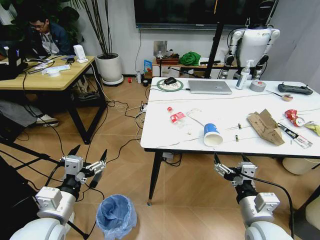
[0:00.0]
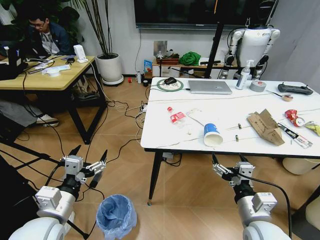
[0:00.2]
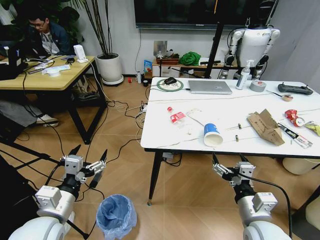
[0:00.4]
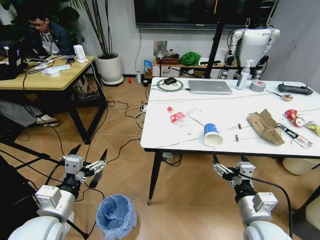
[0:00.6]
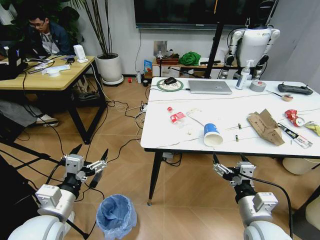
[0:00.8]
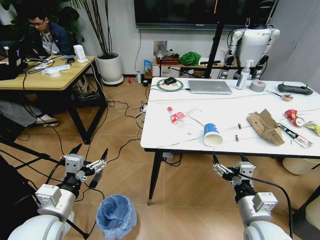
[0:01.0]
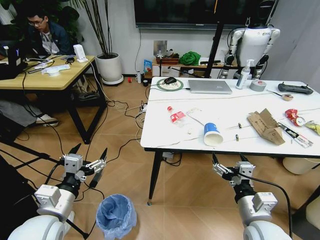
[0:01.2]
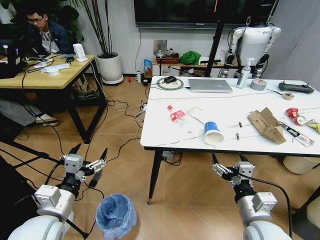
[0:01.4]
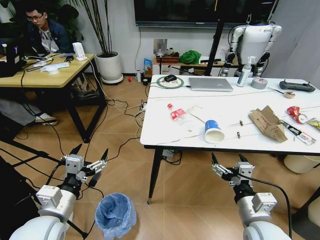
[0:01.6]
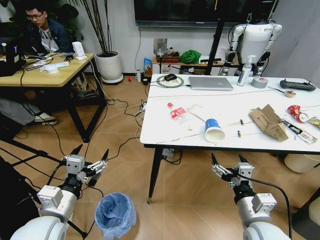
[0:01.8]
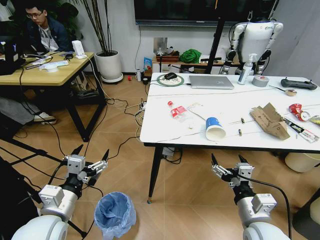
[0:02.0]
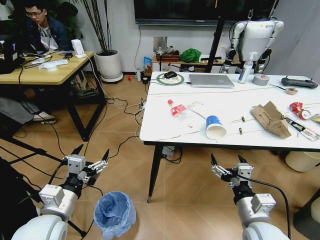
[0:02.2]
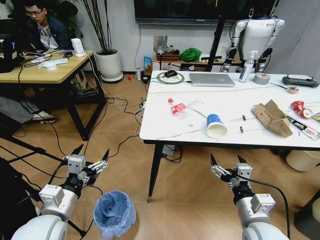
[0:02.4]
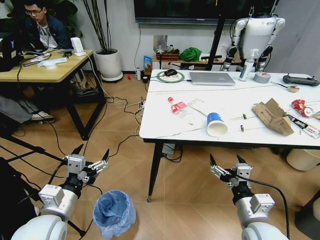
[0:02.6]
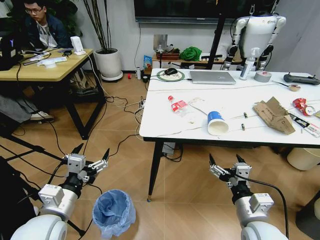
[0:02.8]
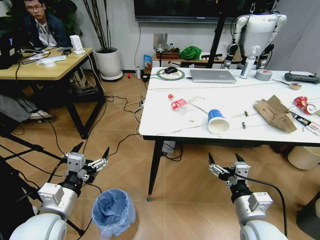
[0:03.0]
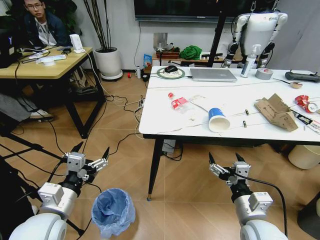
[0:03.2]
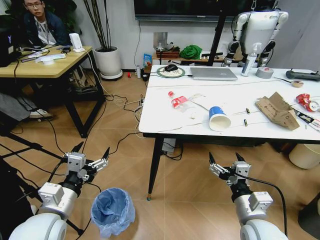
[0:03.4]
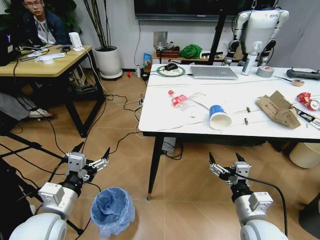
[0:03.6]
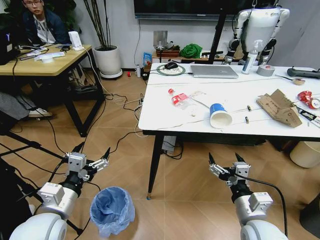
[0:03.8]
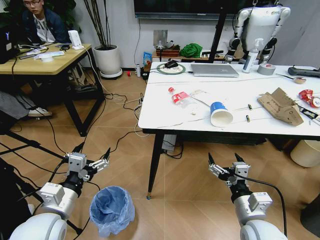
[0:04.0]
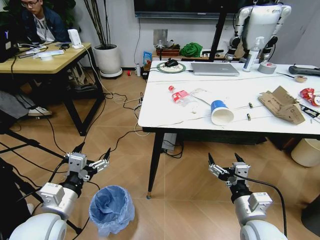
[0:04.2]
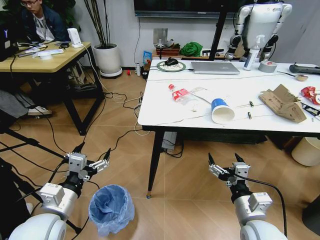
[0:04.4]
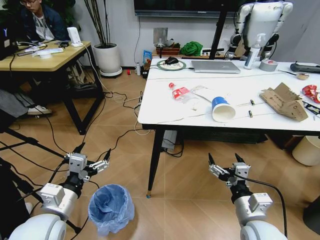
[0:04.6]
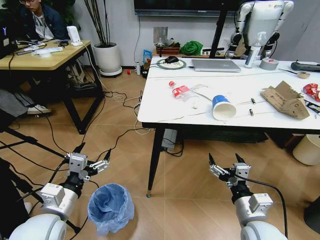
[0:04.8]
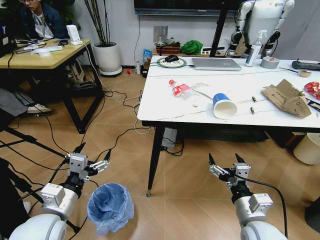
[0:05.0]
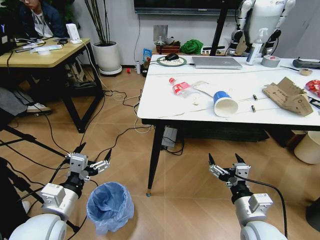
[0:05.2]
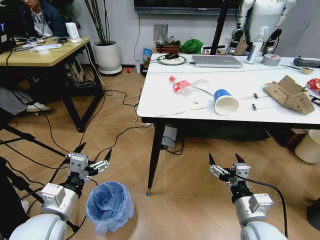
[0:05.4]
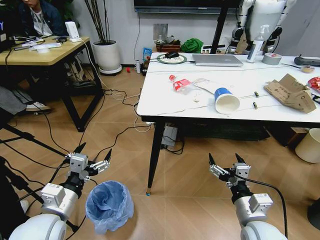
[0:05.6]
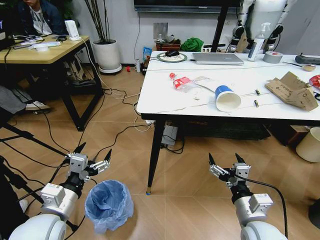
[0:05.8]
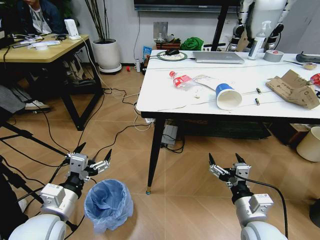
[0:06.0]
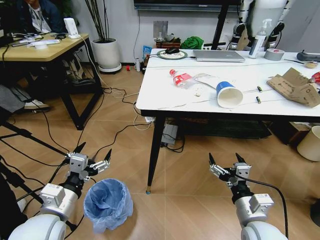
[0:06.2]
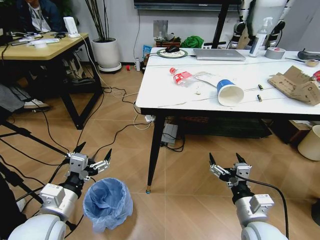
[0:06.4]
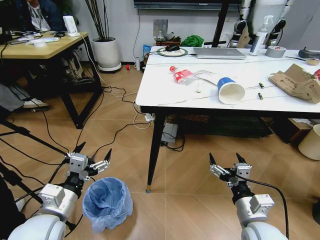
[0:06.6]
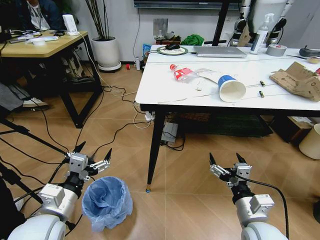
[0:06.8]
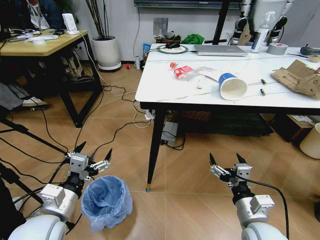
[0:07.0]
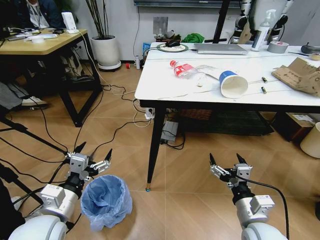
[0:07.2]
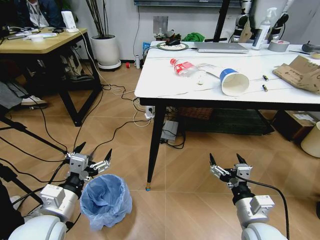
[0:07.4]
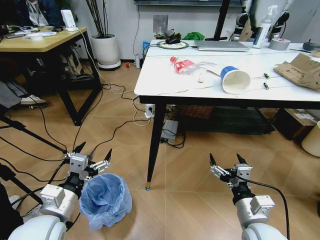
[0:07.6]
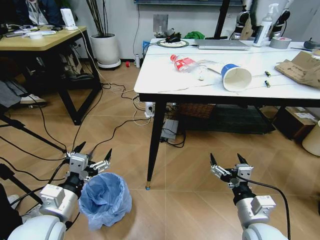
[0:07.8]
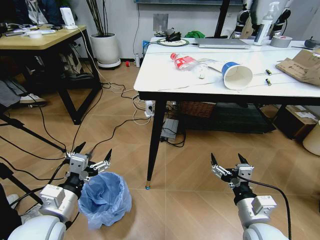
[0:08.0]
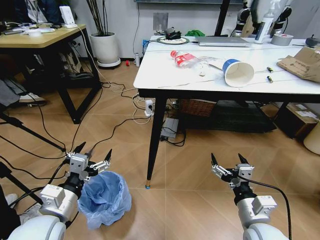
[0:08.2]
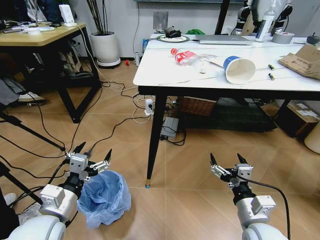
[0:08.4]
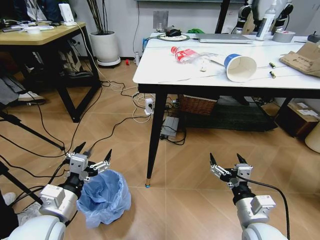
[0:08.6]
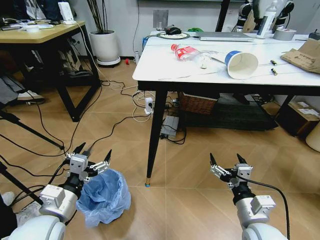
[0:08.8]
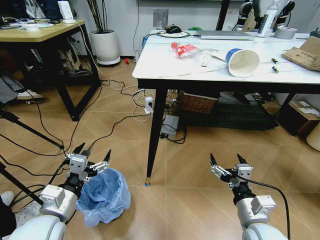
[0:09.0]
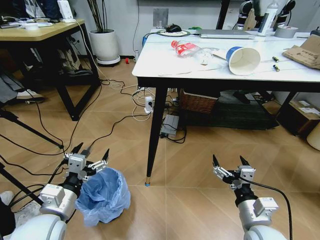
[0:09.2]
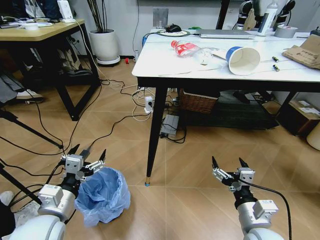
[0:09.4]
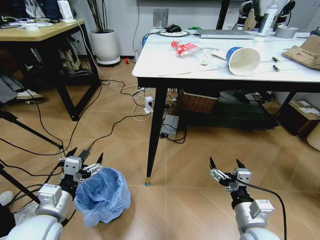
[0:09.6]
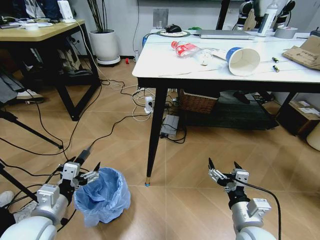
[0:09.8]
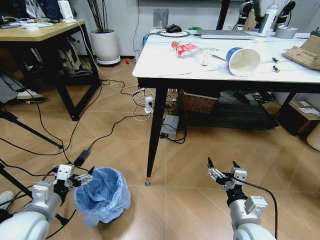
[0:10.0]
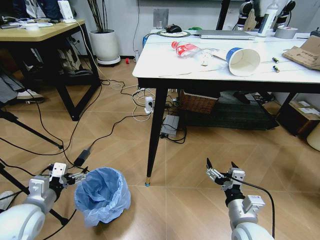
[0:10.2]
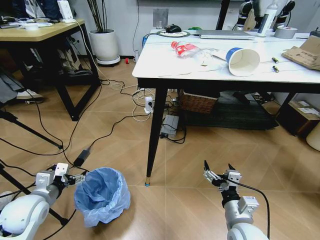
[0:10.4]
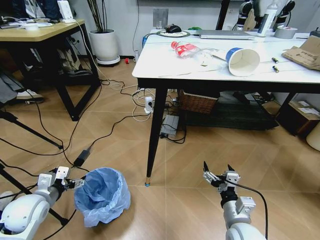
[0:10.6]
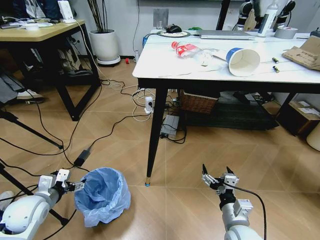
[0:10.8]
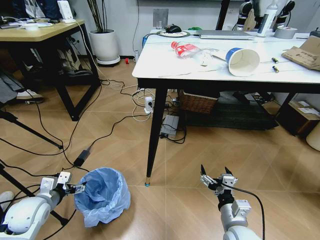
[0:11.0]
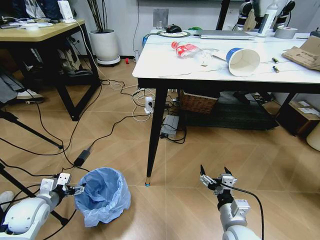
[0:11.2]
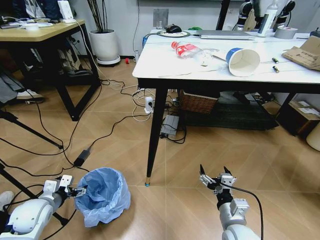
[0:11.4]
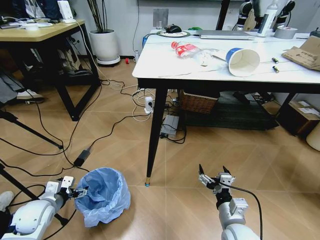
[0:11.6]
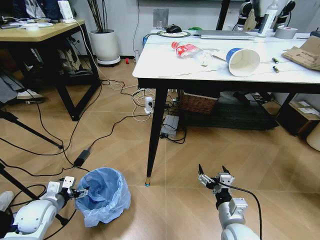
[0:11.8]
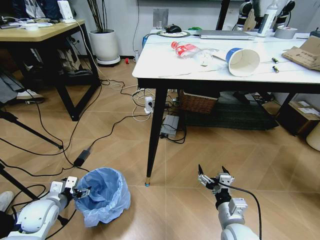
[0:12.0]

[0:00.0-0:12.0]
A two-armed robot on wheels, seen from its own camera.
Task of the whole recording: Pick up the trash bin and place the trash from the table into it.
0:09.0 to 0:10.4: The left gripper shifts some 10 cm to the left and forward.
0:10.4 to 0:12.0: The left gripper goes approximately 10 cm downward.

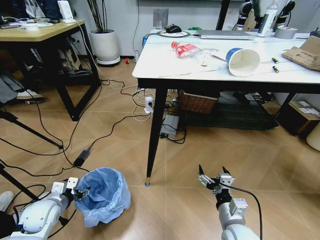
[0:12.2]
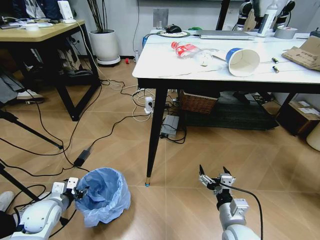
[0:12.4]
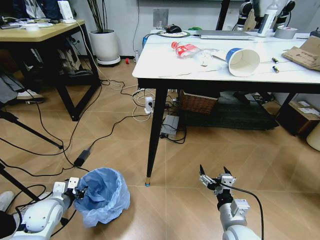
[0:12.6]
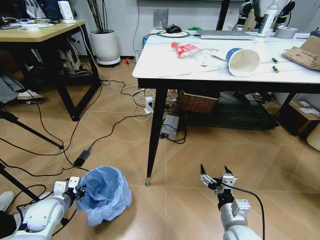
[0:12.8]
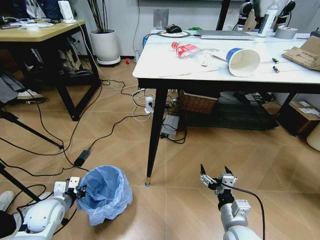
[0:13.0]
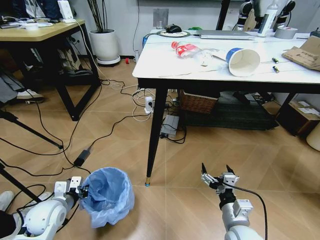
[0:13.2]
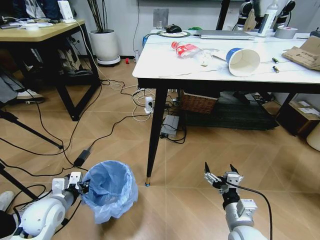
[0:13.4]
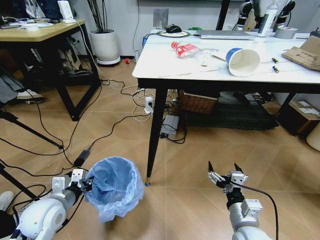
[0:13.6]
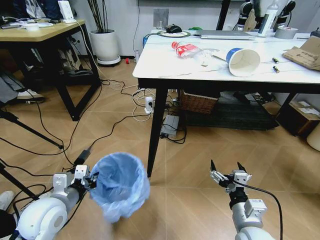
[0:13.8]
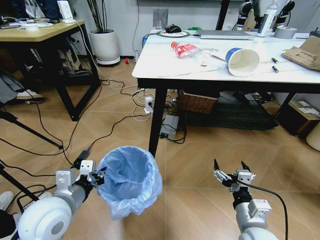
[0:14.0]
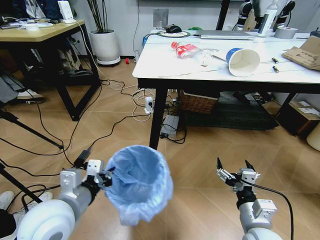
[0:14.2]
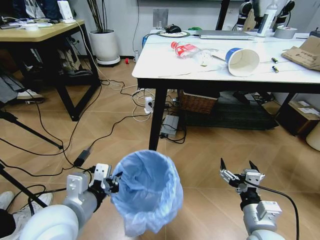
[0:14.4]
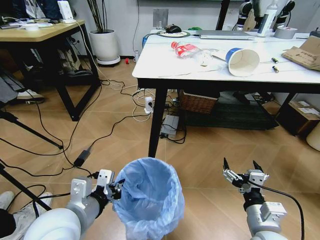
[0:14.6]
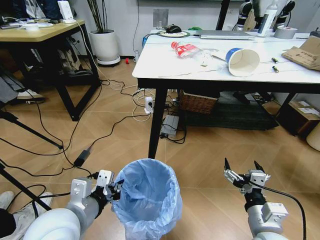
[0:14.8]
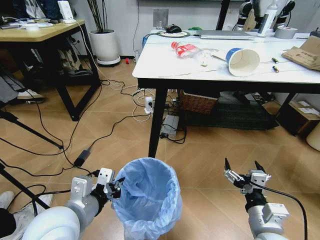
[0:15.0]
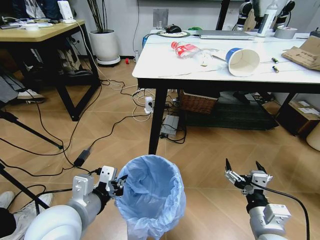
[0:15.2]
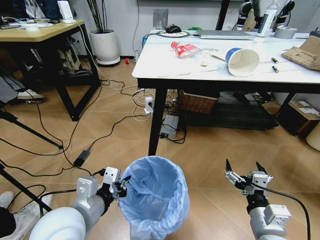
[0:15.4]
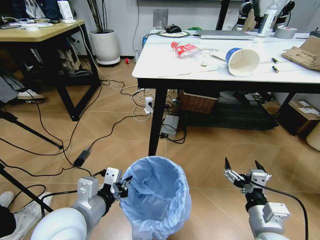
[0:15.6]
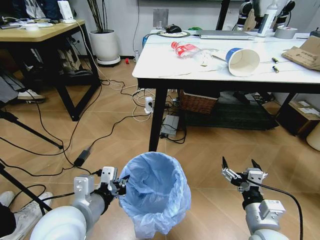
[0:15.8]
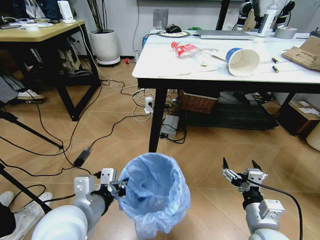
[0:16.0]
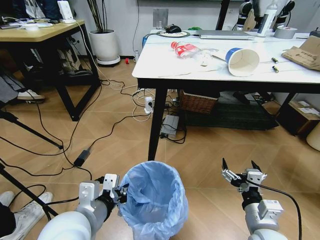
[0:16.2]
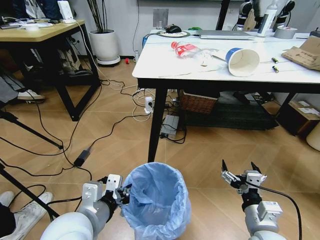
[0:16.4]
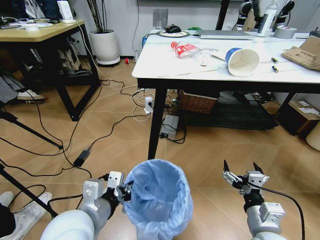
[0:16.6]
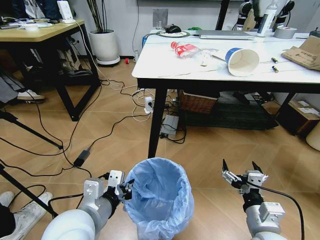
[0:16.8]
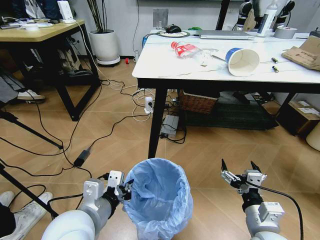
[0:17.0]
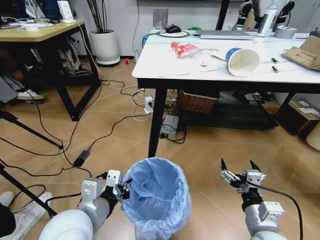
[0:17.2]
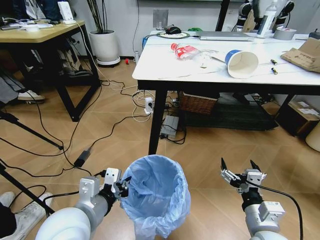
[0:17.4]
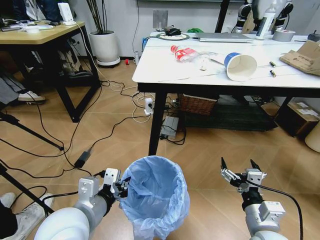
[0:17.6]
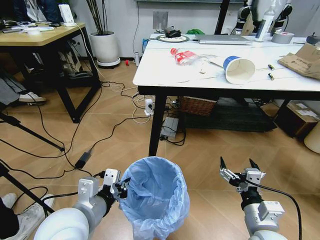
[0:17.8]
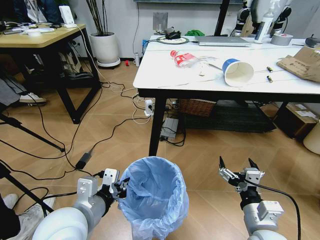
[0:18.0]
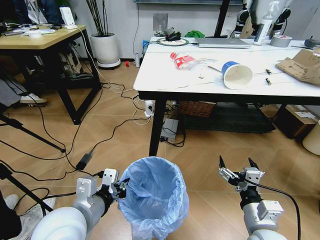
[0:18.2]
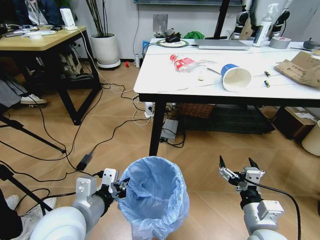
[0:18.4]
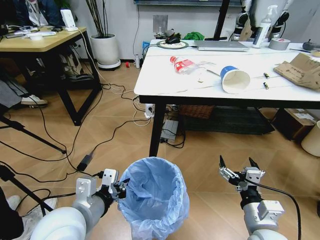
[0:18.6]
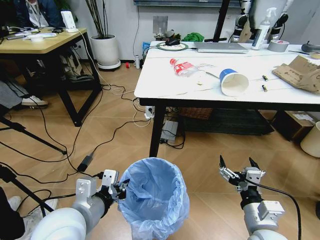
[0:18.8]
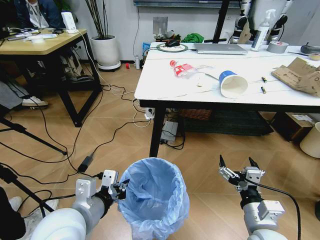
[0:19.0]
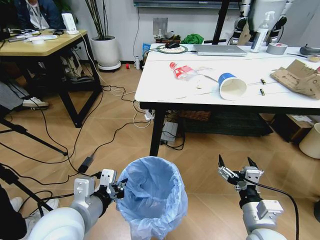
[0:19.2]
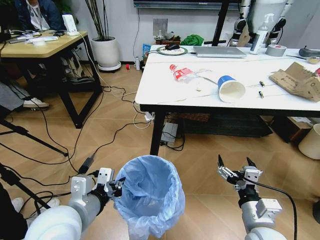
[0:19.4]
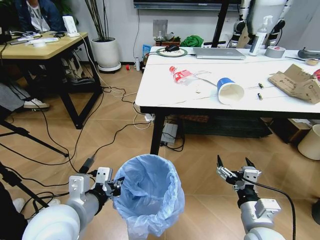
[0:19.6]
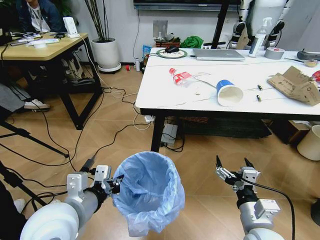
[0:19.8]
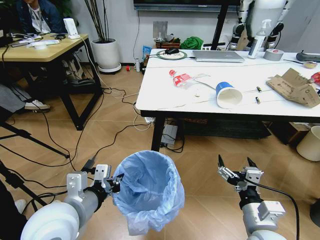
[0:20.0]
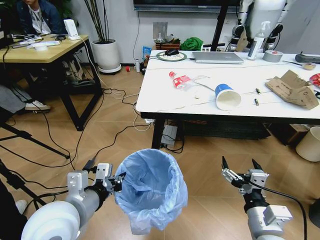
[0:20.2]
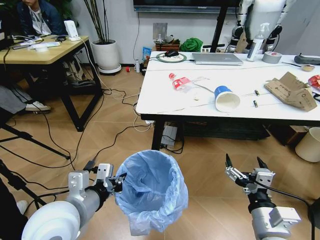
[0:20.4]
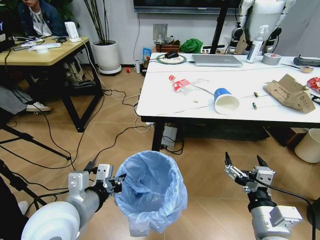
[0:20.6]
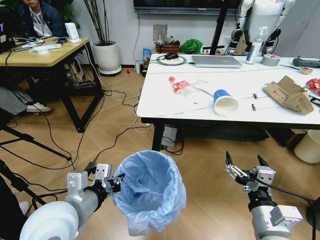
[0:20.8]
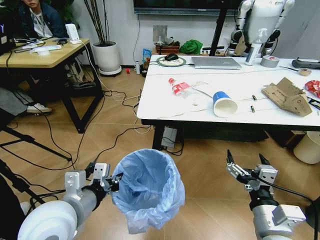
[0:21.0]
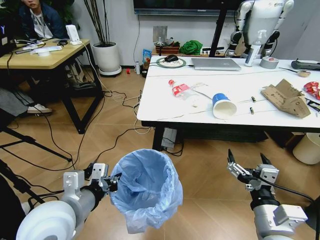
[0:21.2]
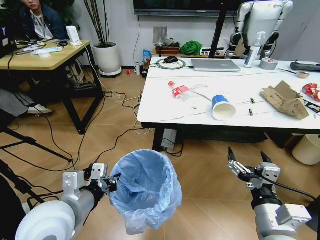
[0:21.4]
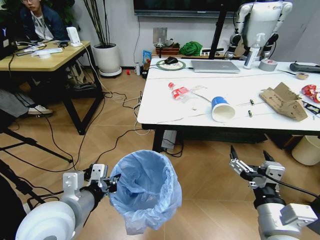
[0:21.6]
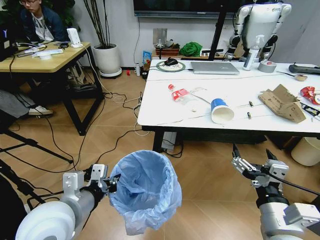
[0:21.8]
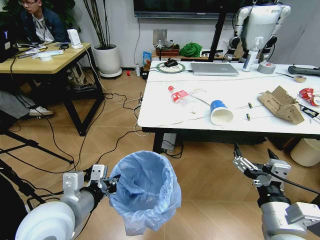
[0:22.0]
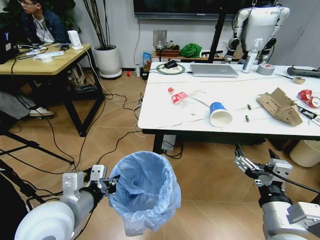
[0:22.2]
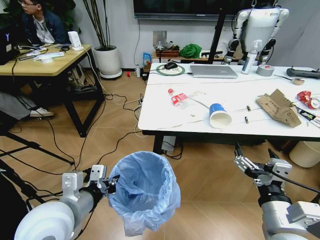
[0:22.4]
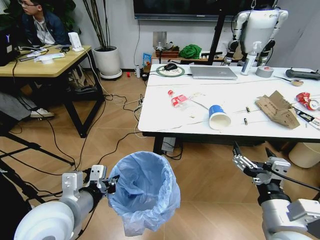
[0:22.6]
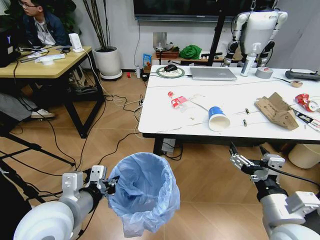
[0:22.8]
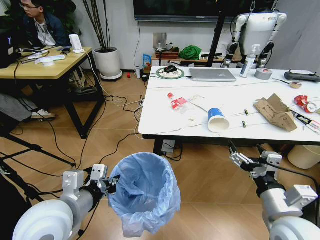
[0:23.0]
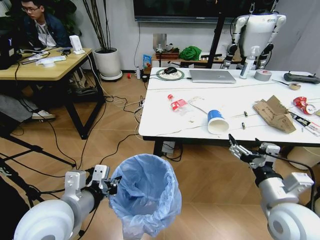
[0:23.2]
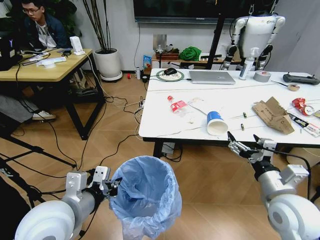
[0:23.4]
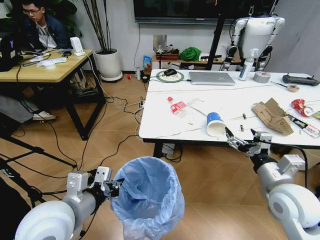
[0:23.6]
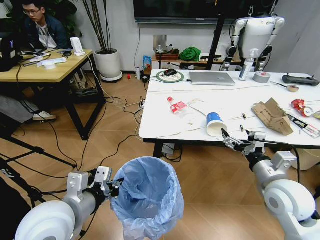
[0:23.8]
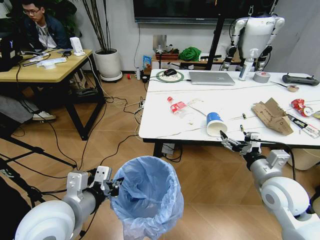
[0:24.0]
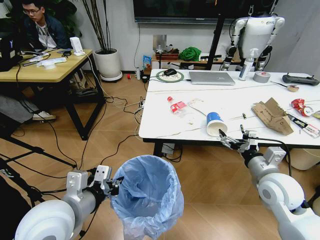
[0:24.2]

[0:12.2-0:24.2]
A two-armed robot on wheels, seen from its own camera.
Task of the whole recording: Pick up the trash bin and place the trash from the table into it.
0:12.2 to 0:13.8: The right gripper changes place by approximately 5 cm. Meanwhile the left gripper goes approximately 15 cm upward and to the right, and closes its fingers.
0:13.8 to 0:15.2: The left gripper goes about 10 cm to the right and upward.
0:15.2 to 0:16.6: The grippers stay close to where they were, moving slightly.
0:22.6 to 0:24.2: The right gripper heads forward and to the right, covering about 15 cm.
